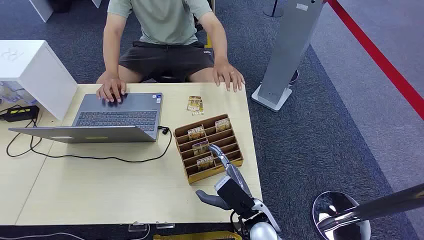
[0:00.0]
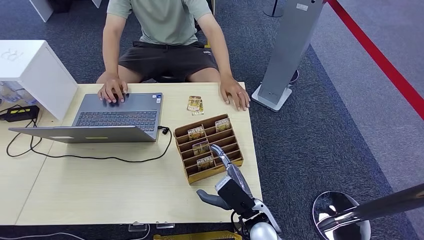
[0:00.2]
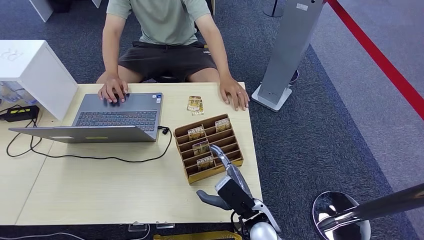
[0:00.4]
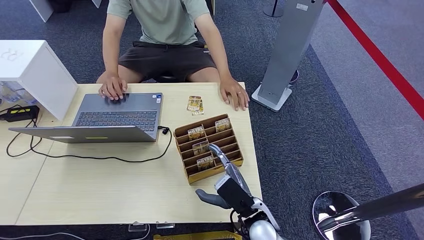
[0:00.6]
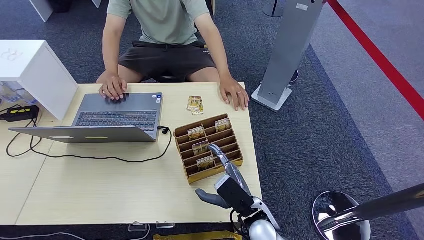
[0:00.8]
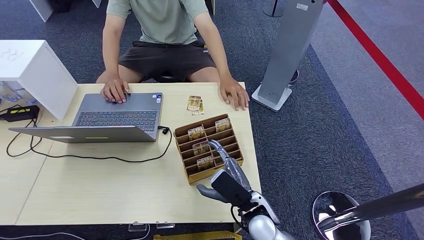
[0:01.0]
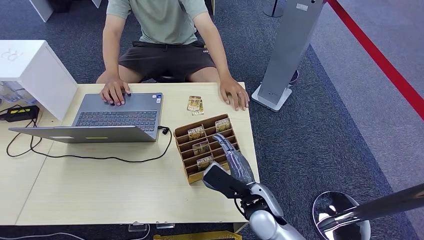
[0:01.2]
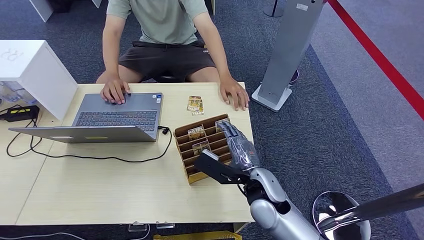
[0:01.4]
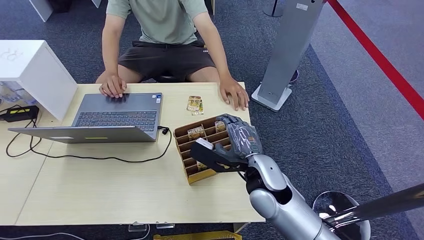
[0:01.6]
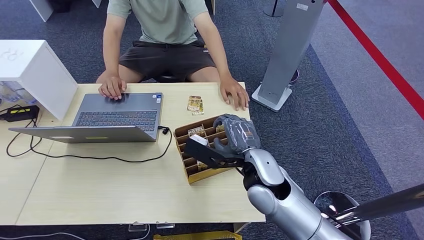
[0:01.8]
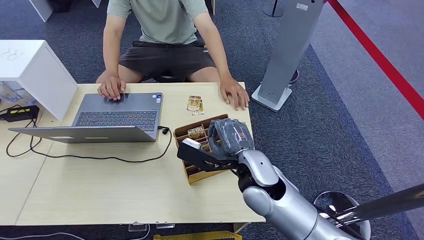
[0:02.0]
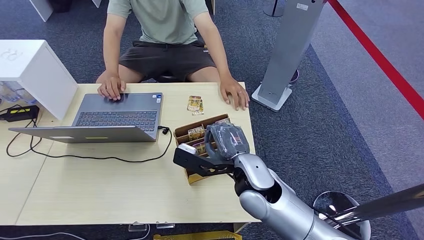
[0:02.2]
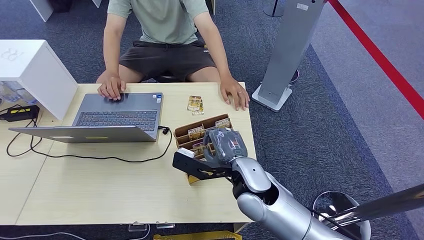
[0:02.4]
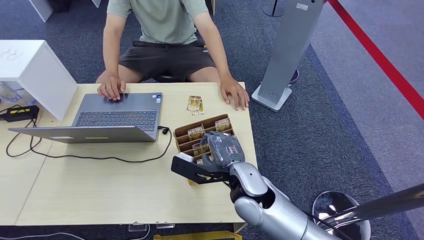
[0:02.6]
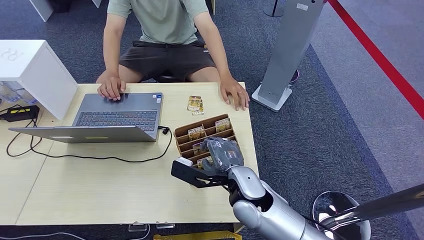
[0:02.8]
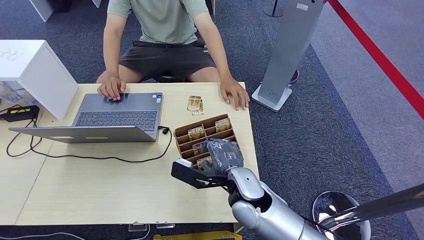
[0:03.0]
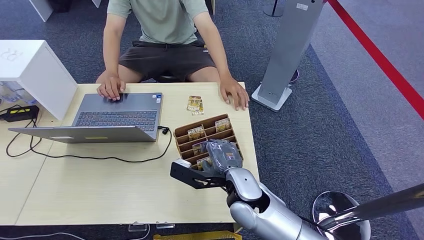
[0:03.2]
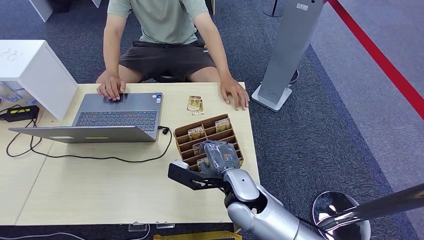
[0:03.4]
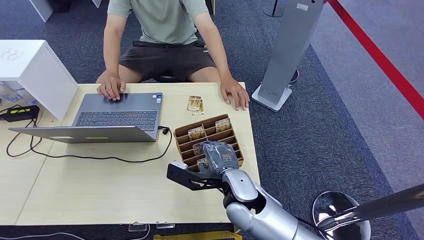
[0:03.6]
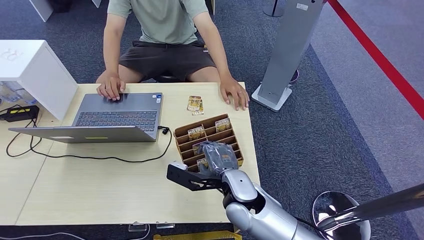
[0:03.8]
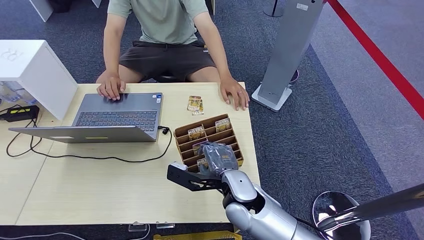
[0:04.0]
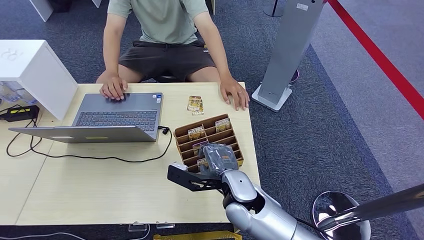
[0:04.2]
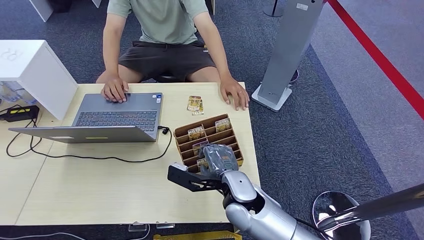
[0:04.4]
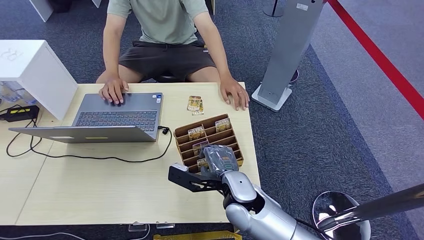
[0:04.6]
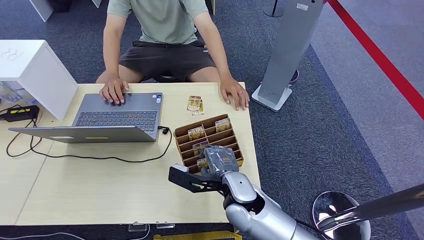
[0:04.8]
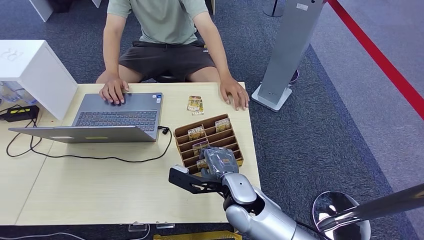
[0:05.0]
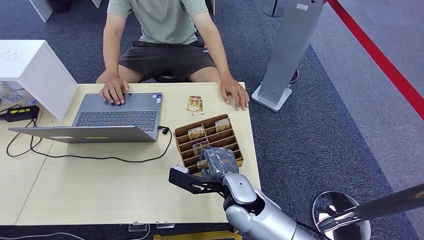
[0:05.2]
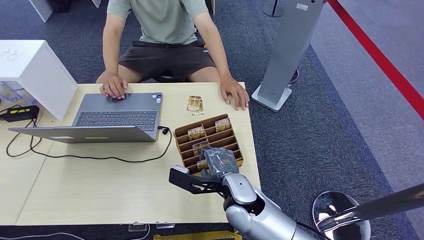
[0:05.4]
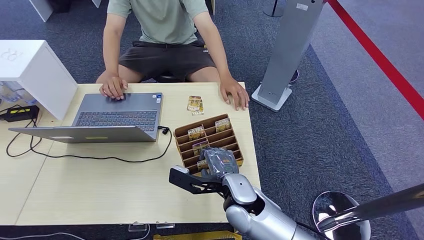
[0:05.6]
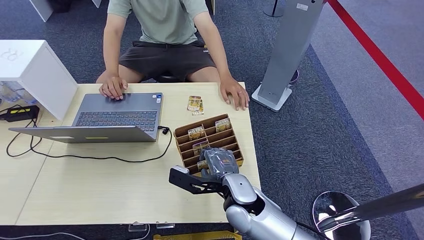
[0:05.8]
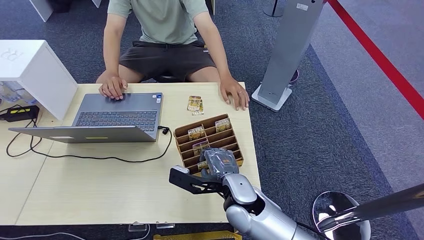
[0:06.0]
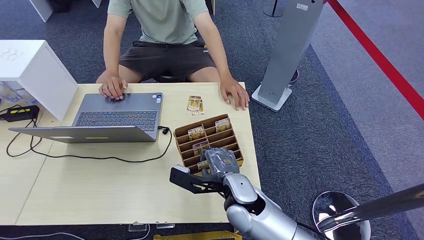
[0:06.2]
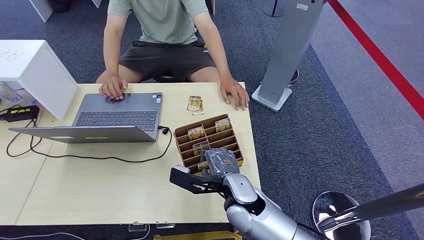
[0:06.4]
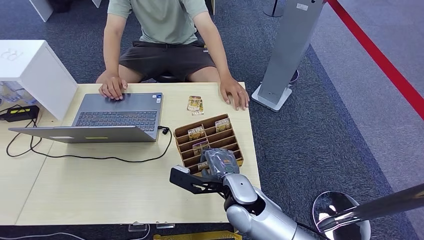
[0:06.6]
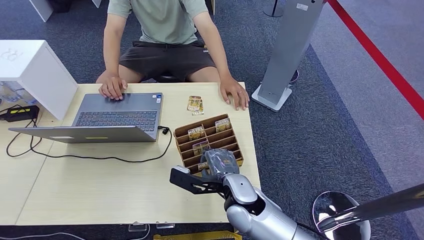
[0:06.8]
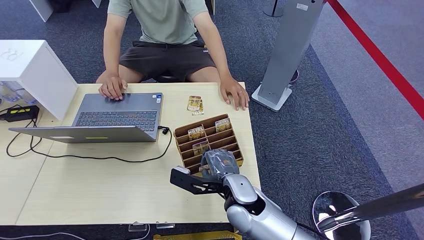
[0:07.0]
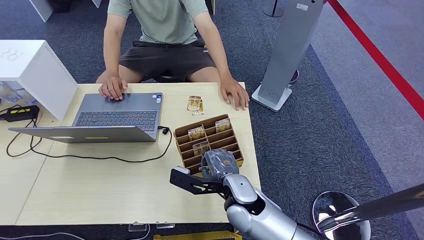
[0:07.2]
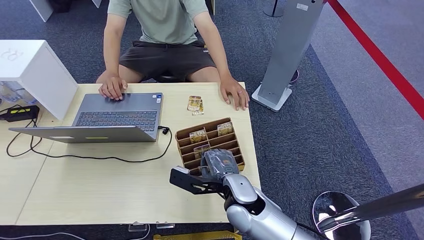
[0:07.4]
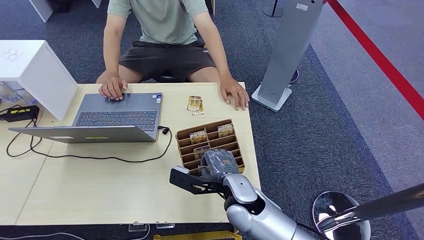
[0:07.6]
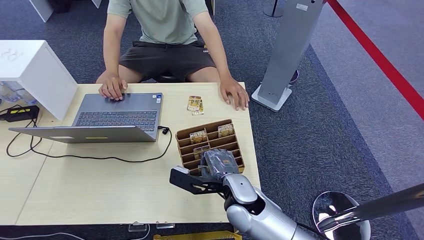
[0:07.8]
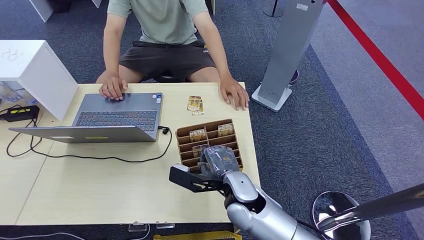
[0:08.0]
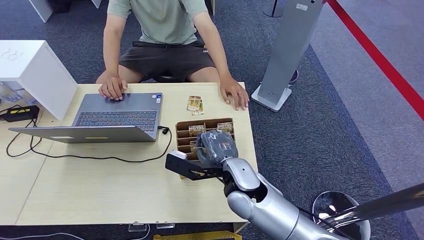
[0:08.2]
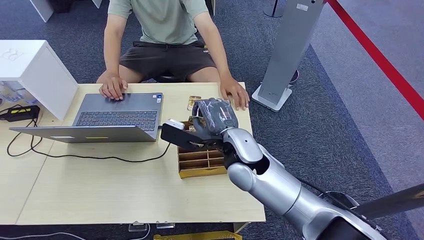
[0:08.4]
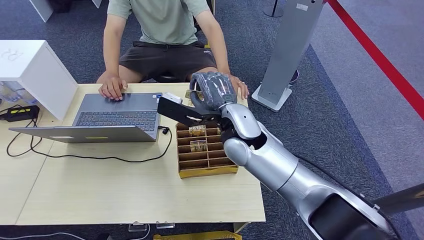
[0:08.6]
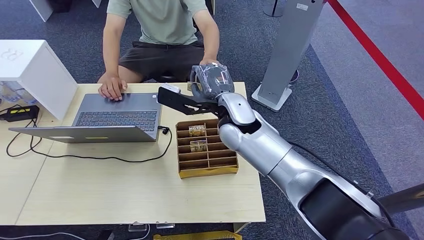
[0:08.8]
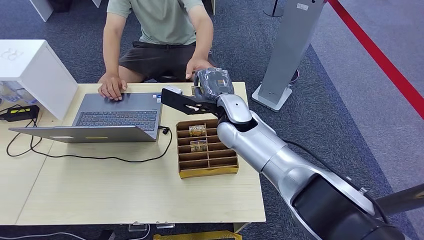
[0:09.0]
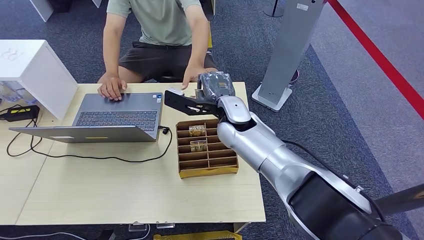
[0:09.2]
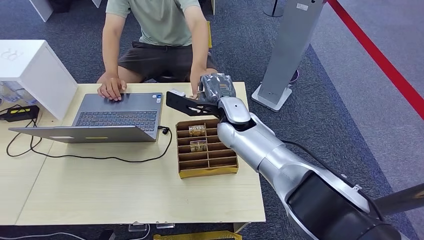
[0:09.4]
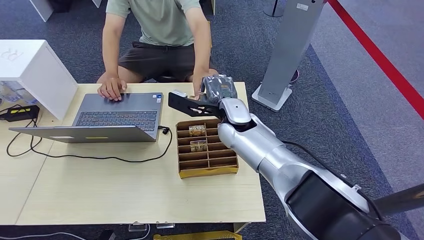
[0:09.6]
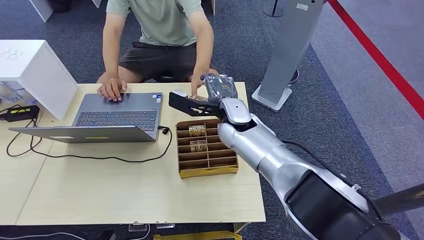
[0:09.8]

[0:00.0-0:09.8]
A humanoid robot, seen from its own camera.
Step, 0:00.0 to 0:08.8: Pick up the room card from the card holder.
Step, 0:09.0 to 0:09.6: Hand the room card to the target.
0:01.4 to 0:02.8: The right hand moves about 5 cm.
0:02.8 to 0:04.2: The hands stay close to where they were, moving slightly.
0:04.2 to 0:05.6: The two hands keep their place.
0:05.6 to 0:07.0: The two hands keep their place.
0:07.0 to 0:08.4: The right hand is displaced upward and forward by some 10 cm.
0:08.4 to 0:09.8: The right hand goes approximately 10 cm forward.
